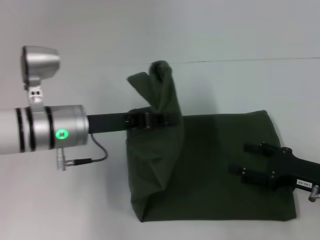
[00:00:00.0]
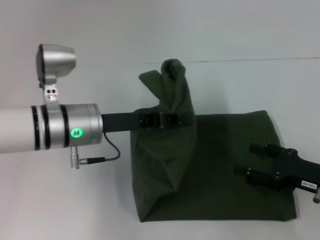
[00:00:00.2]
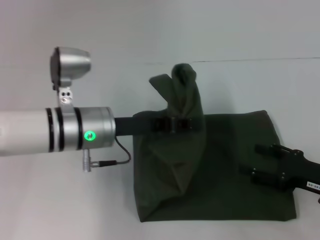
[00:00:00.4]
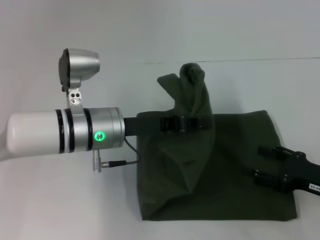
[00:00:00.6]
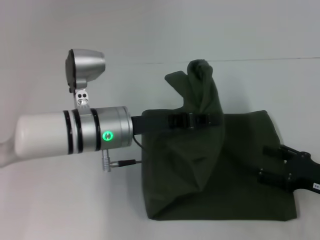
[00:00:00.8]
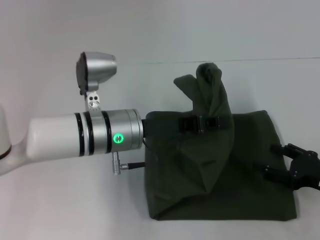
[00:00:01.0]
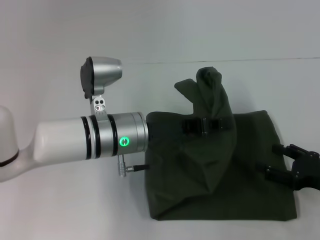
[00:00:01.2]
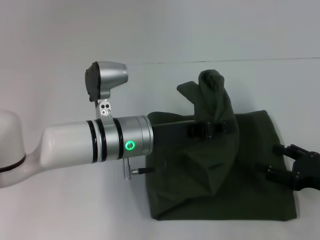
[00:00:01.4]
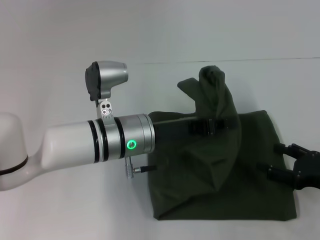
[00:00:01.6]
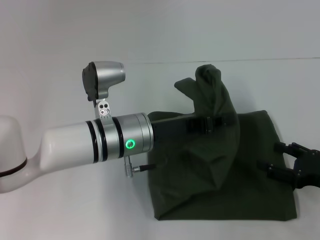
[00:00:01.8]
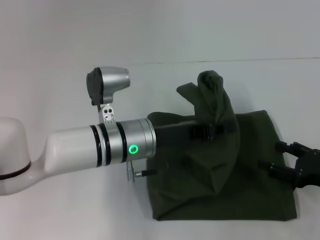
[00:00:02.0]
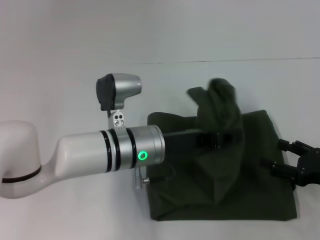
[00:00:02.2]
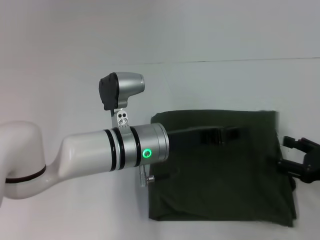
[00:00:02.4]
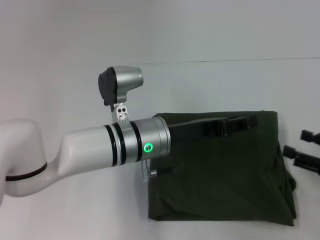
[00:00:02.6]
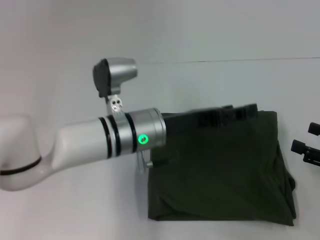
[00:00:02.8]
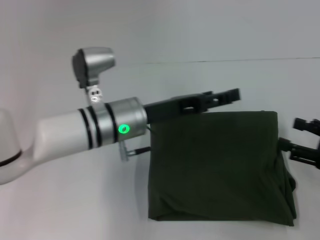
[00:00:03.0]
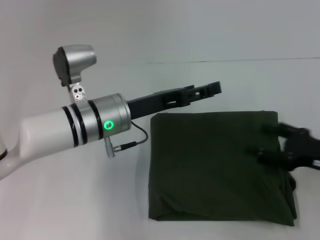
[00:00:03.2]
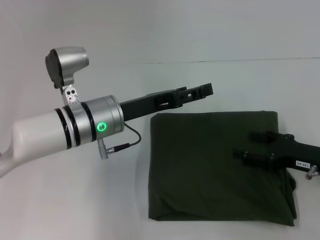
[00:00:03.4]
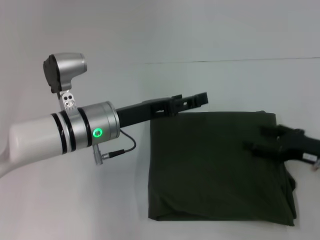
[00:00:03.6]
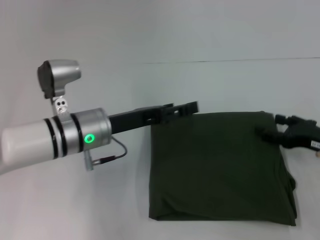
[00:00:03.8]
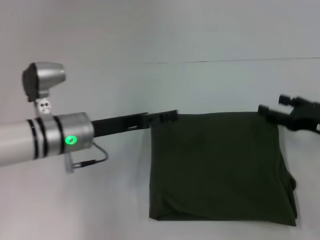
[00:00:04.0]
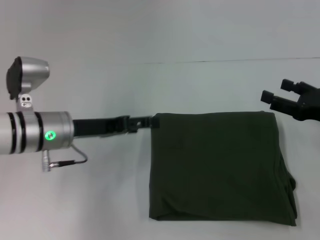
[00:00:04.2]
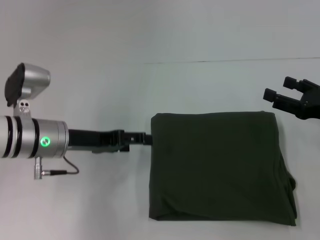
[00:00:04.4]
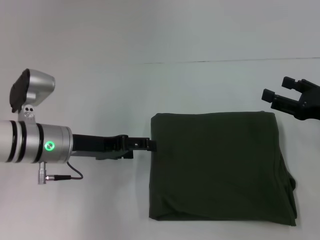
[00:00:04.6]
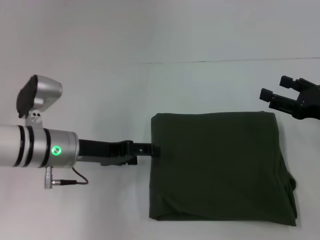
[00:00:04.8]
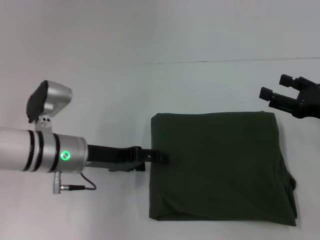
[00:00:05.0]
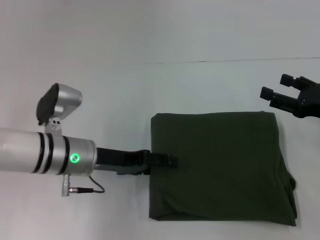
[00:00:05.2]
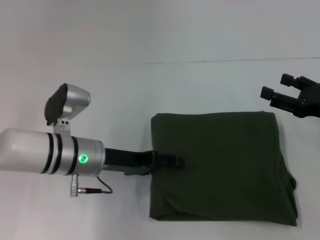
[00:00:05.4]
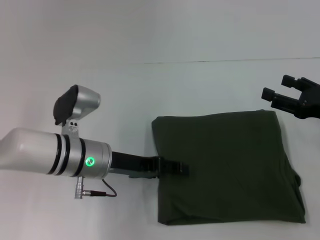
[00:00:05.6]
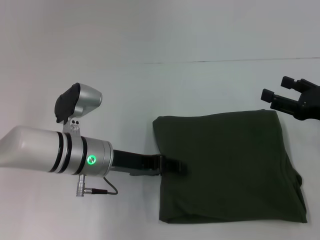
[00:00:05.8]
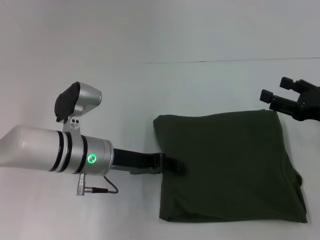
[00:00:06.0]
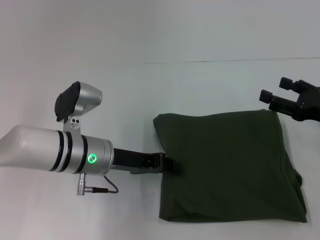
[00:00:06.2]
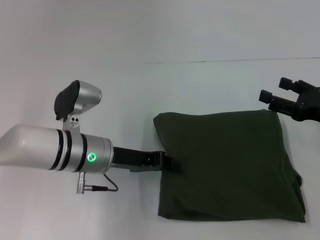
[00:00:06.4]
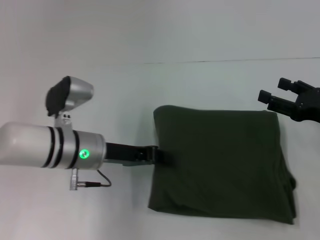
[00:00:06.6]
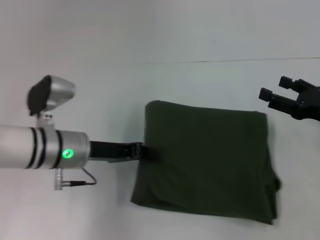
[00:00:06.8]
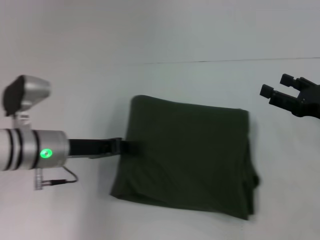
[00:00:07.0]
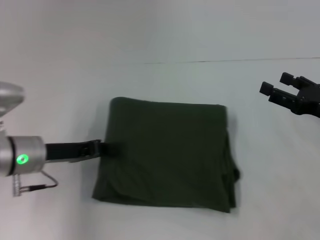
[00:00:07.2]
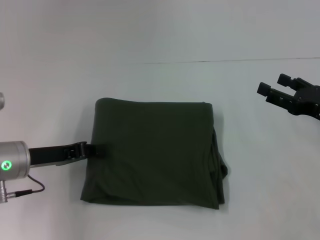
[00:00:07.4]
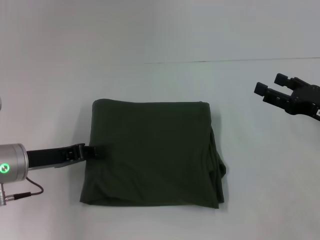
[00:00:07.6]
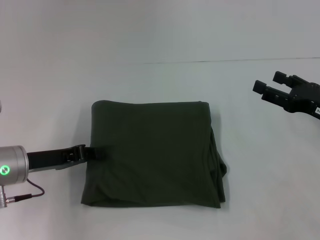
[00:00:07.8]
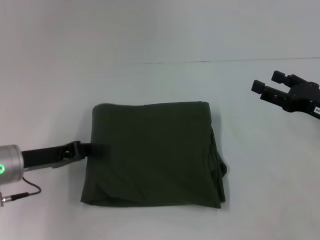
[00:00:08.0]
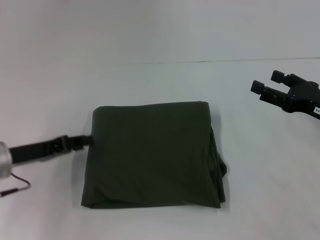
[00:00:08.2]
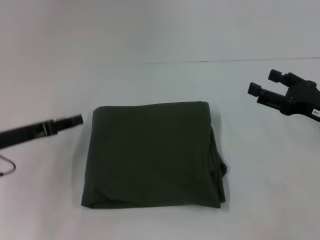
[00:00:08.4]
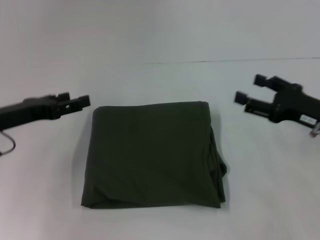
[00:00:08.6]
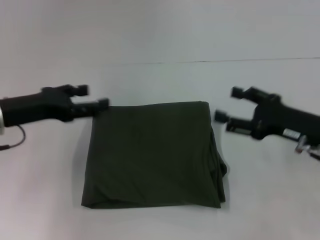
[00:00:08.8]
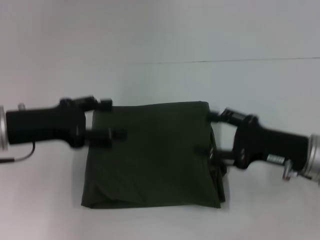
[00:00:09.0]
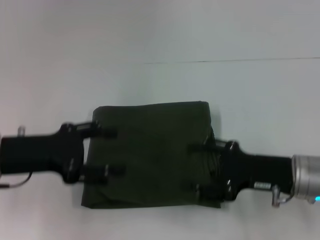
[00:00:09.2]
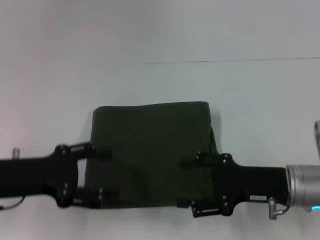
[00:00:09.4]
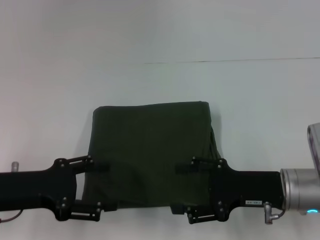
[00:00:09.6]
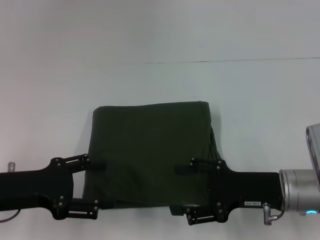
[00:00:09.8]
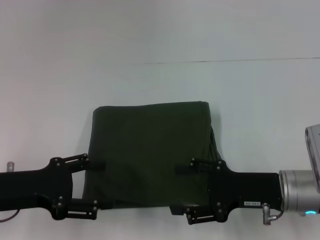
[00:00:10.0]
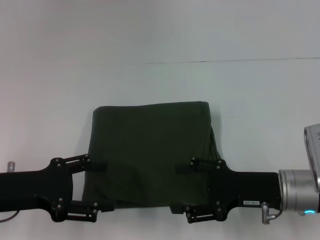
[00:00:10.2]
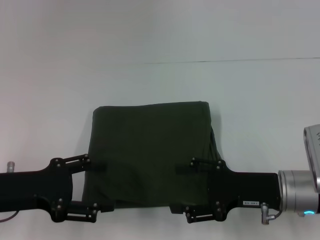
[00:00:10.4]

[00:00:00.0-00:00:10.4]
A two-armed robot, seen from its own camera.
Step, 00:00:00.0 to 00:00:02.4: Fold the clothes with your left hand.
00:00:00.0 to 00:00:01.4: The left gripper heads to the right, covering about 10 cm.
00:00:01.4 to 00:00:03.0: The left gripper opens. Meanwhile the right gripper shifts by approximately 5 cm.
00:00:03.0 to 00:00:04.4: The right gripper heads forward, covering about 5 cm. Meanwhile the left gripper moves to the left, about 10 cm.
00:00:04.4 to 00:00:06.0: The left gripper moves to the right, roughly 5 cm.
00:00:06.0 to 00:00:07.4: The left gripper travels to the left by approximately 10 cm, and closes its fingers.
00:00:07.4 to 00:00:09.0: The right gripper goes approximately 5 cm to the left, while the left gripper moves upward, about 5 cm, and opens up.
00:00:09.0 to 00:00:10.4: The right gripper ends up about 5 cm from where it was; the left gripper moves backward, some 5 cm.

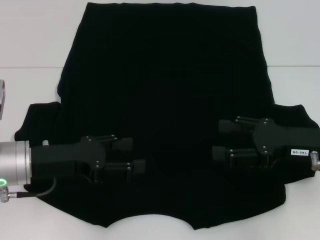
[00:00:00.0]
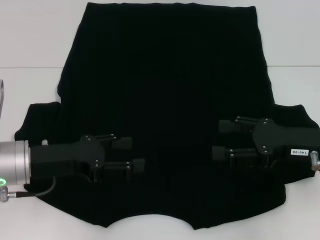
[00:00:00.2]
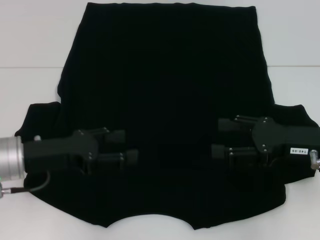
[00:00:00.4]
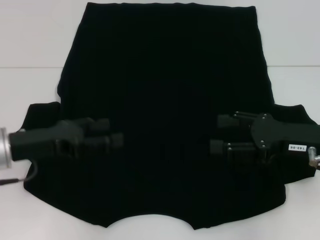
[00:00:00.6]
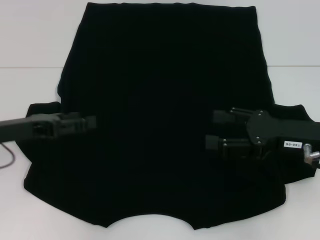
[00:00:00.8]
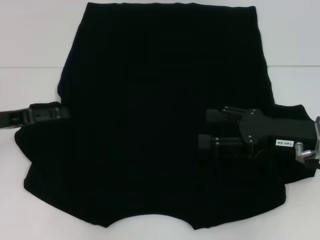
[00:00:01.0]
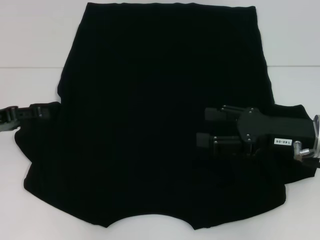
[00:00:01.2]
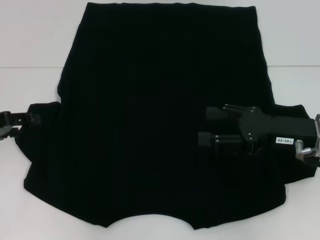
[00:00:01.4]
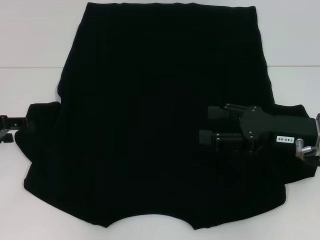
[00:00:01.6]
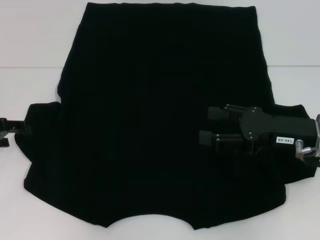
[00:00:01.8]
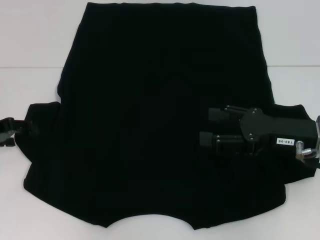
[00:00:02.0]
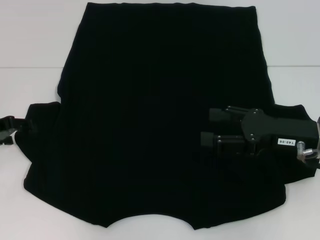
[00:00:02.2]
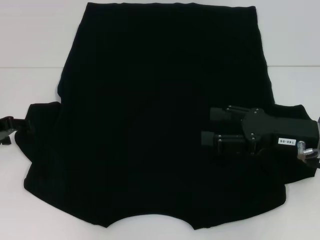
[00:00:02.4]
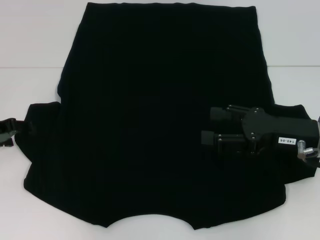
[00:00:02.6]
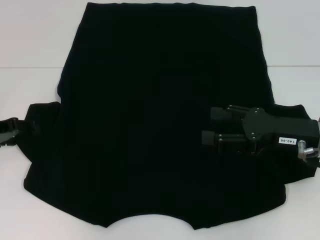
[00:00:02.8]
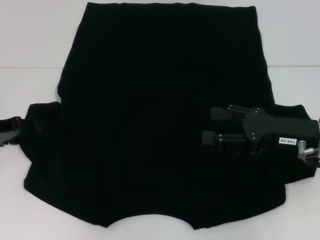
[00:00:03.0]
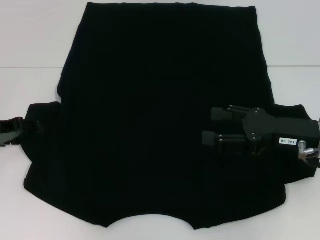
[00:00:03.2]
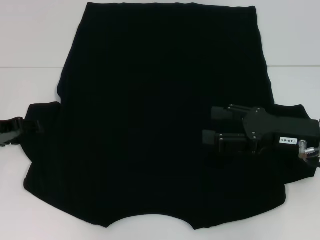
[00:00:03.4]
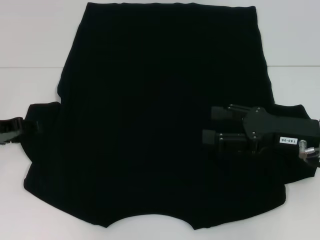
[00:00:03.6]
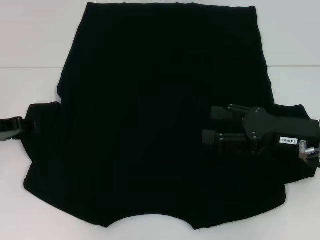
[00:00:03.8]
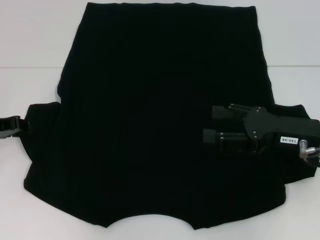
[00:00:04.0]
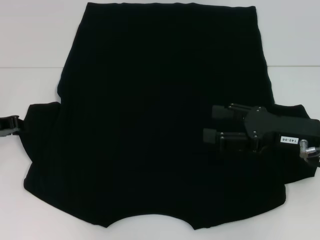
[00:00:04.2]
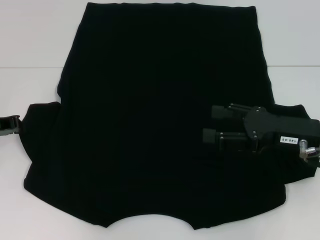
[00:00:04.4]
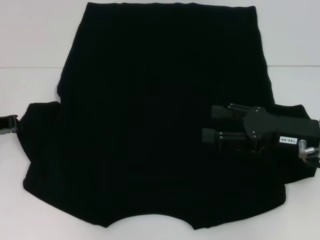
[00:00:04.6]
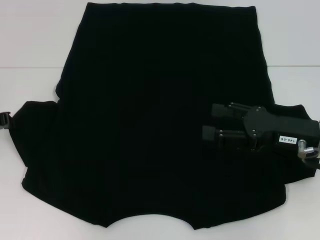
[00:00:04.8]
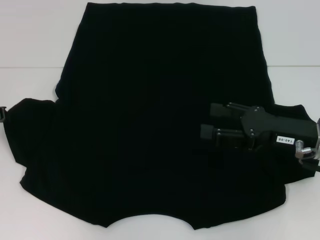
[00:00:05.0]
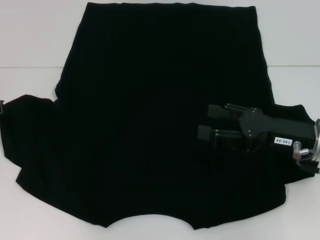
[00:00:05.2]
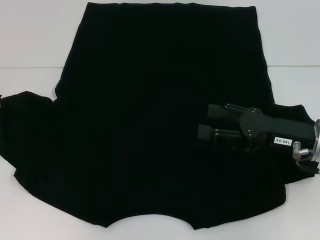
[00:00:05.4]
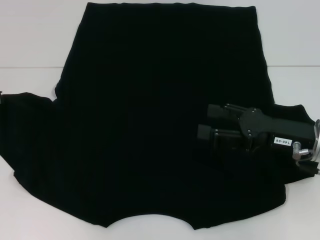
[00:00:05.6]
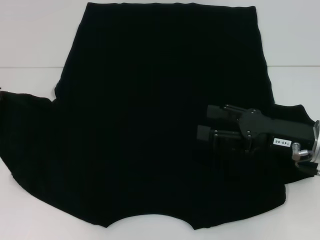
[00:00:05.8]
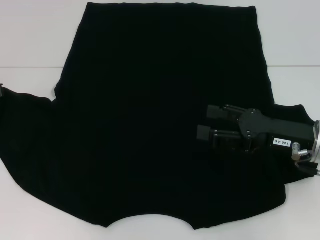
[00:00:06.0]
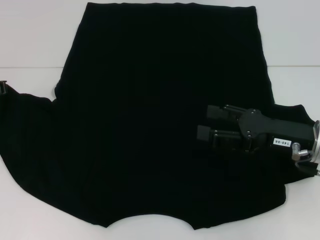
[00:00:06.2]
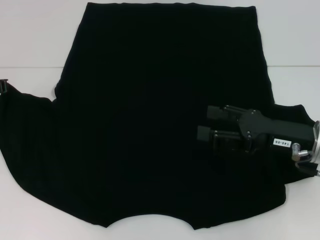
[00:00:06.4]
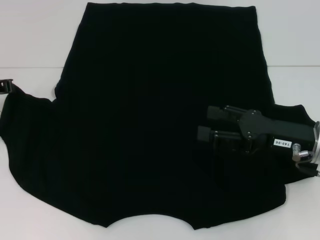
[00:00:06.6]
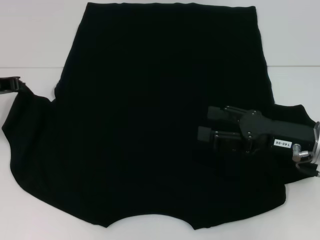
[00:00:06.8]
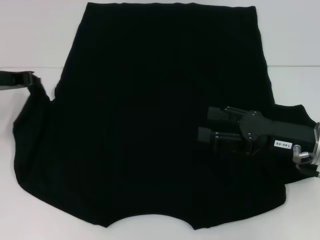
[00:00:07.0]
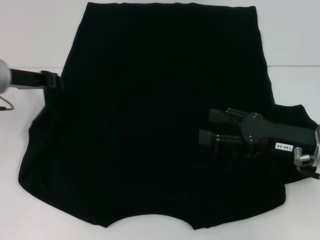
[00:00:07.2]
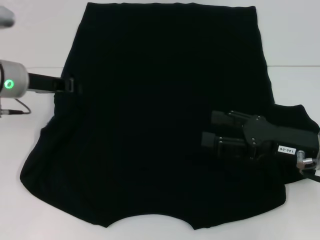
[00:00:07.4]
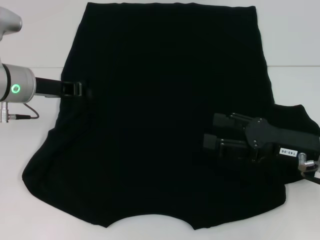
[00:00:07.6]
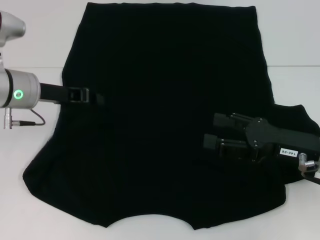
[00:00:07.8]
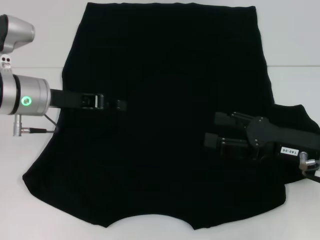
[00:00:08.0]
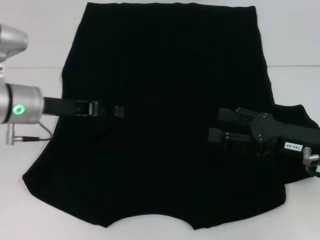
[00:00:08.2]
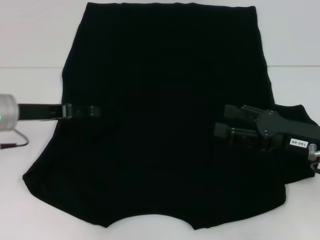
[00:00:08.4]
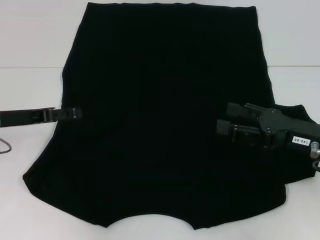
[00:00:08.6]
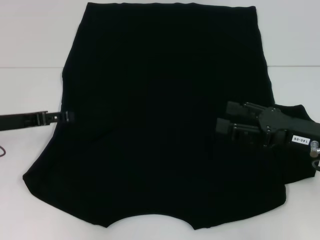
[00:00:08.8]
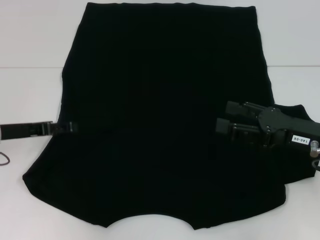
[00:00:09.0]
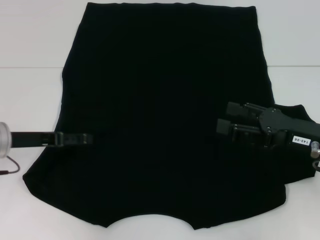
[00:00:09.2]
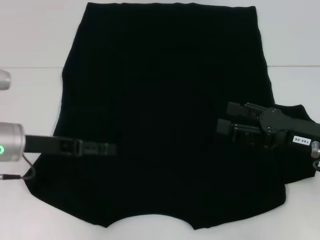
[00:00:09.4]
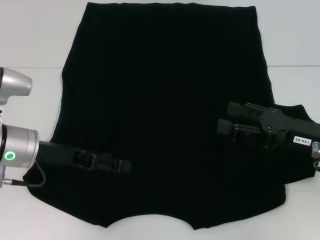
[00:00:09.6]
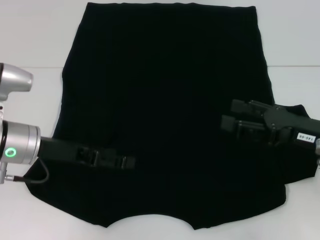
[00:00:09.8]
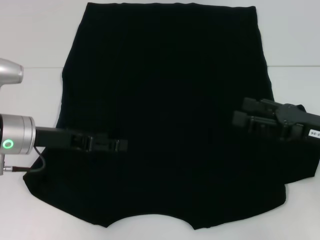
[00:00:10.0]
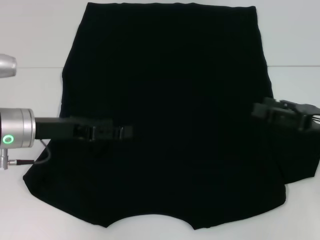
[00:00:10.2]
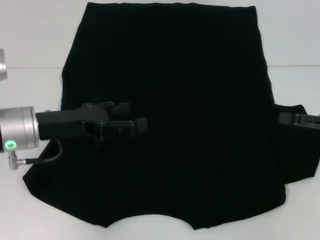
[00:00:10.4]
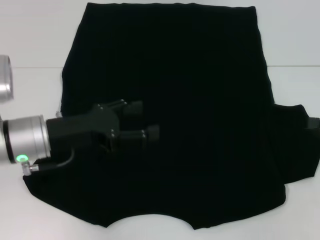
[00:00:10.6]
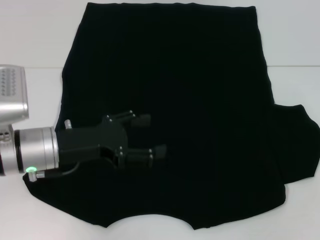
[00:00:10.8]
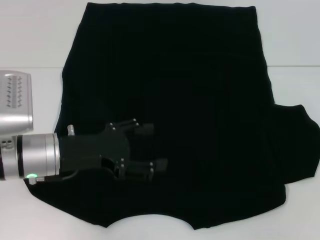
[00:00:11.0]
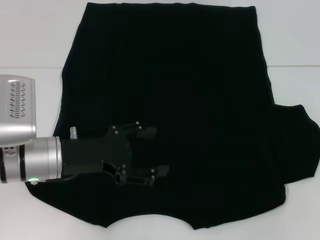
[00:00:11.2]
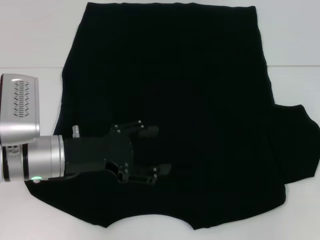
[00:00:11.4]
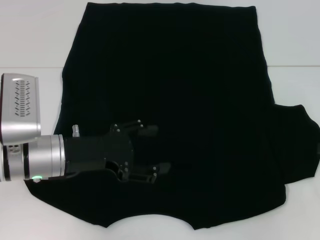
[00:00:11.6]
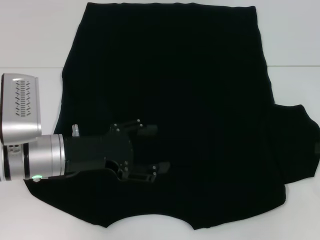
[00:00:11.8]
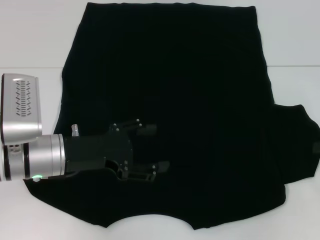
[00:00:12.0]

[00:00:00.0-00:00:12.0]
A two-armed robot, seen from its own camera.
Step, 00:00:00.0 to 00:00:08.6: Fold the bottom left sleeve with your left hand.
00:00:00.0 to 00:00:01.6: The left gripper moves to the left, roughly 10 cm.
00:00:01.6 to 00:00:03.0: The grippers make only small movements.
00:00:03.0 to 00:00:04.4: The left gripper closes.
00:00:04.4 to 00:00:06.0: The grippers move only a little.
00:00:06.0 to 00:00:07.6: The left gripper heads to the right, covering roughly 10 cm.
00:00:07.6 to 00:00:09.0: The left gripper moves backward, to the left and downward, roughly 10 cm, and opens up.
00:00:09.0 to 00:00:10.4: The grippers both shift to the right by roughly 10 cm.
